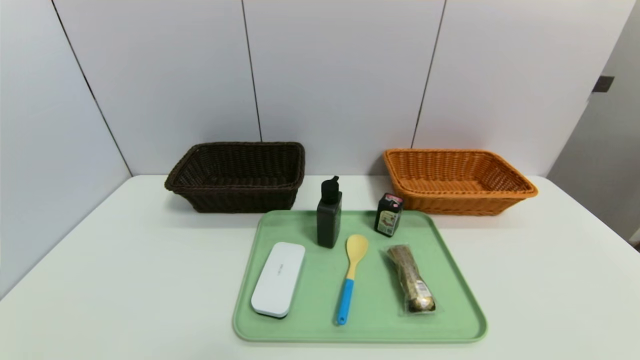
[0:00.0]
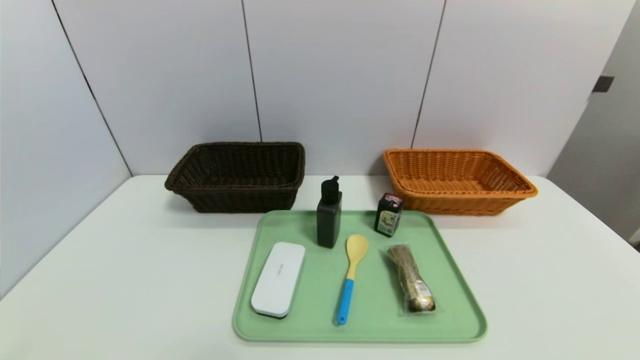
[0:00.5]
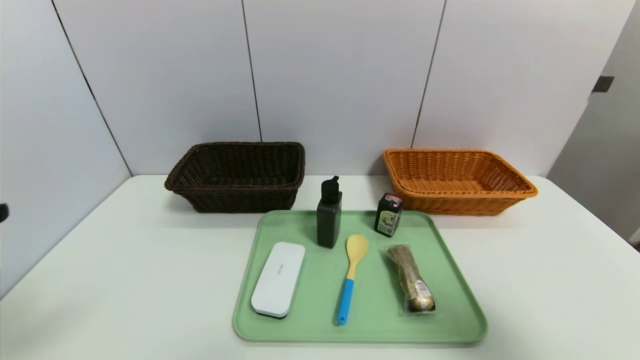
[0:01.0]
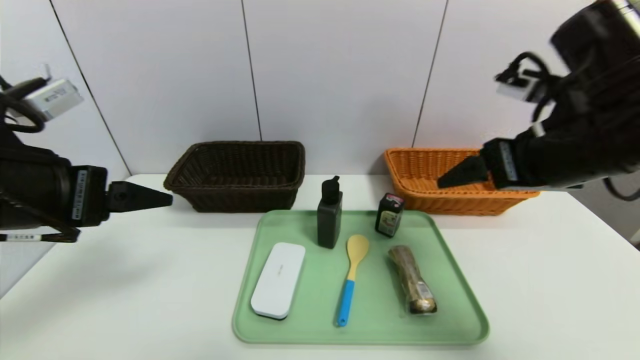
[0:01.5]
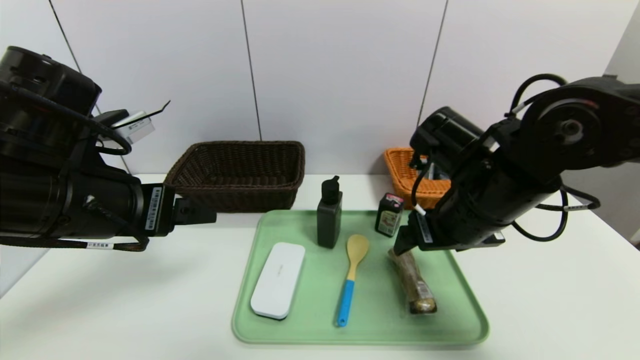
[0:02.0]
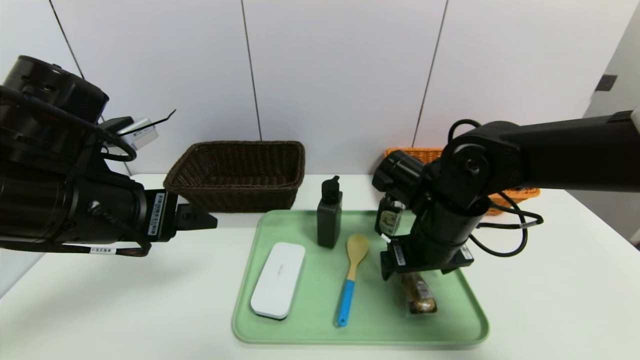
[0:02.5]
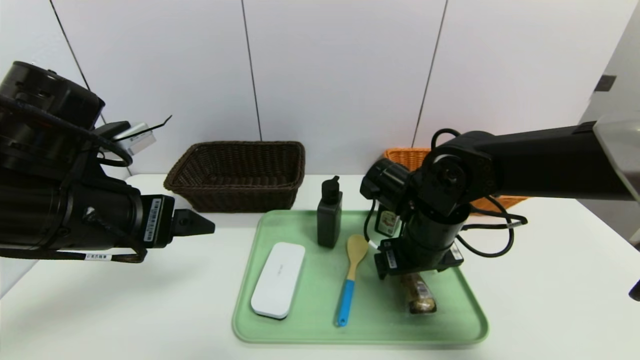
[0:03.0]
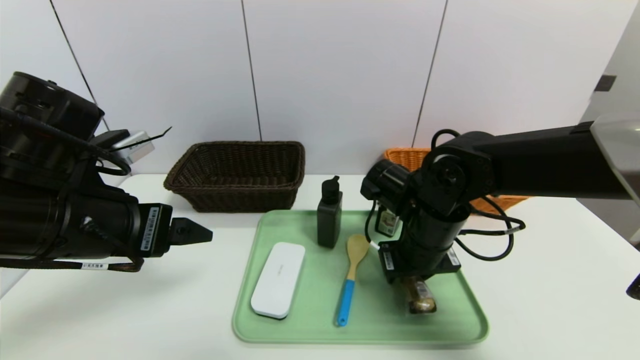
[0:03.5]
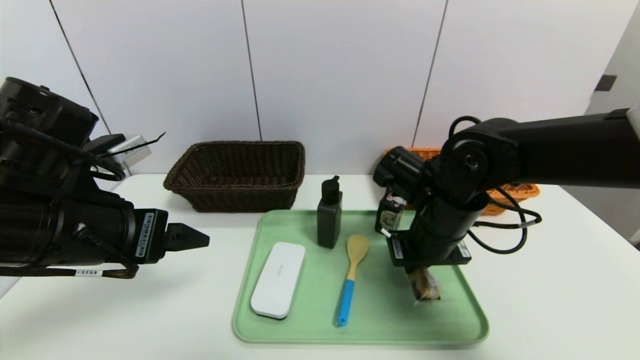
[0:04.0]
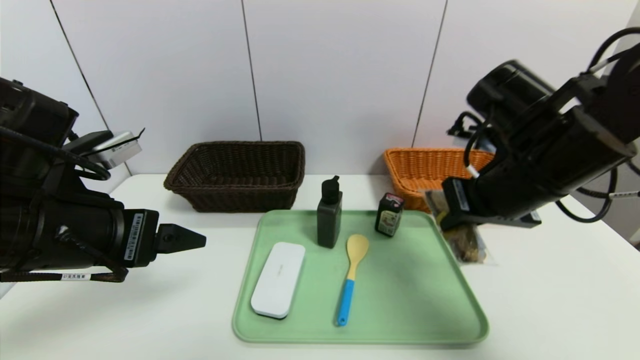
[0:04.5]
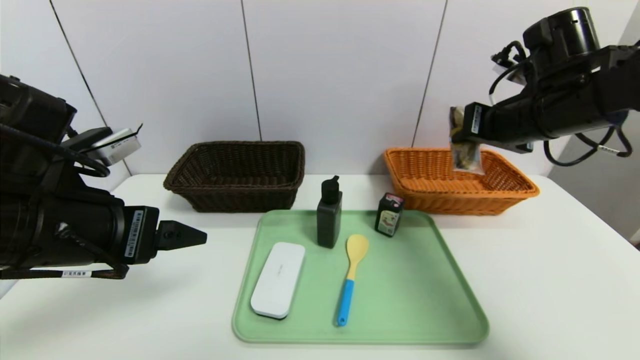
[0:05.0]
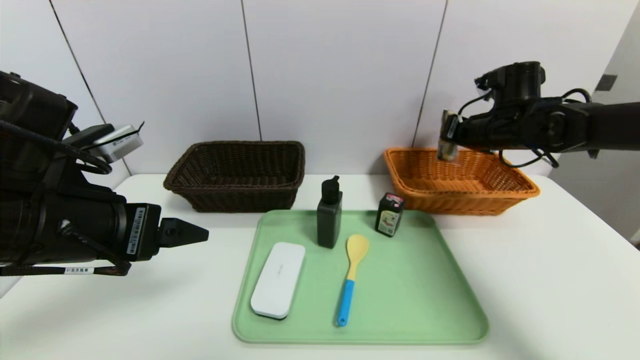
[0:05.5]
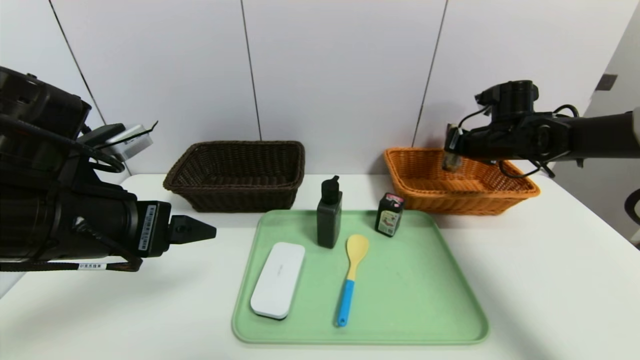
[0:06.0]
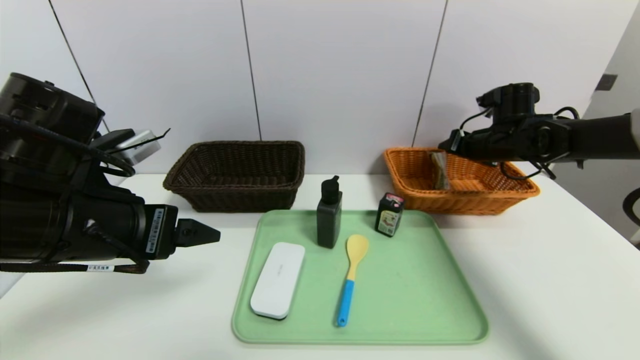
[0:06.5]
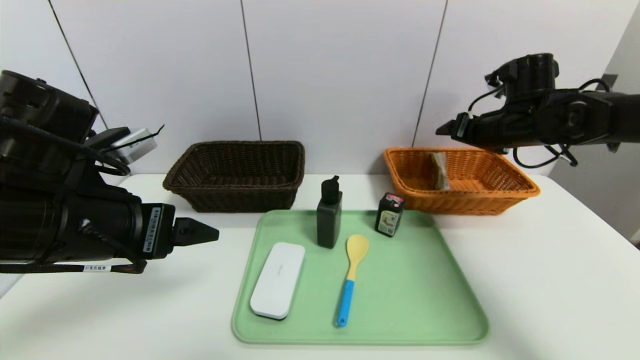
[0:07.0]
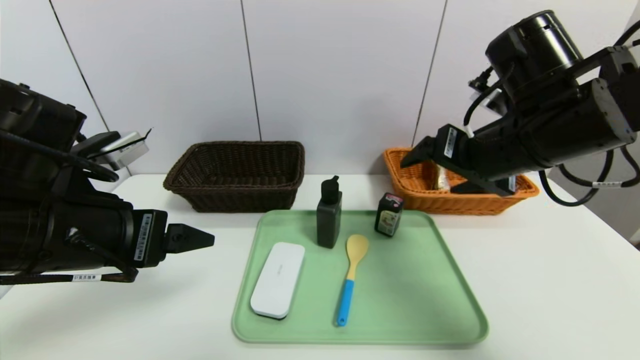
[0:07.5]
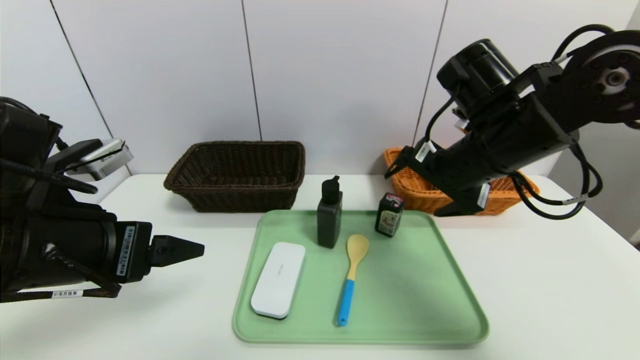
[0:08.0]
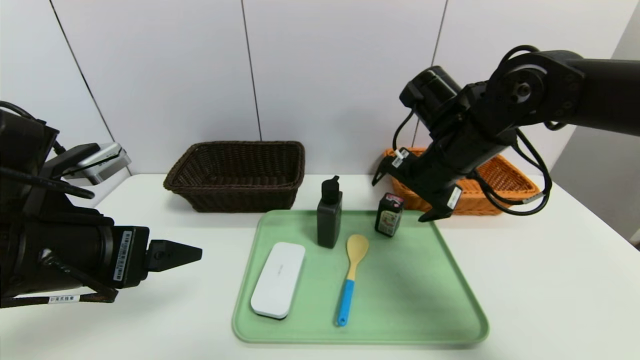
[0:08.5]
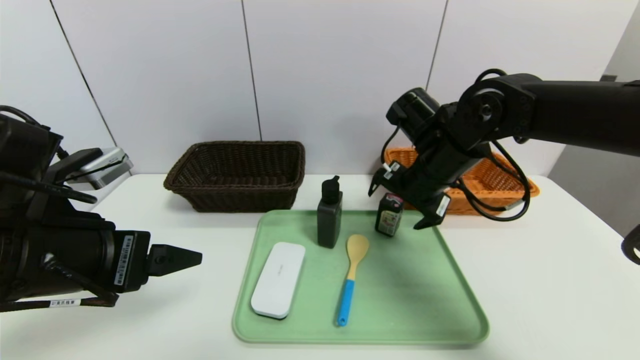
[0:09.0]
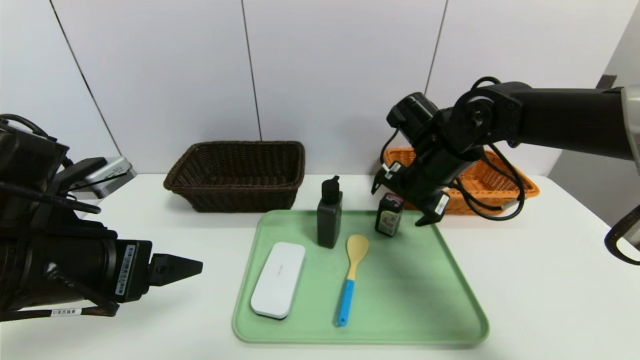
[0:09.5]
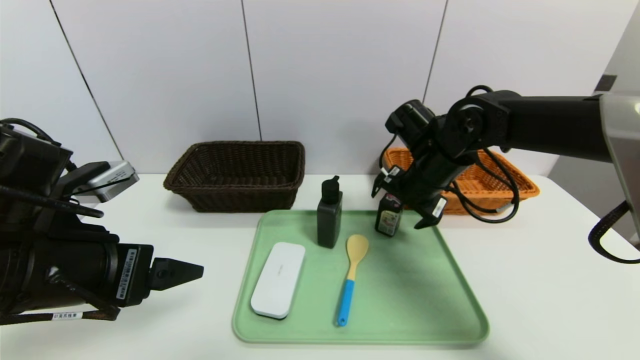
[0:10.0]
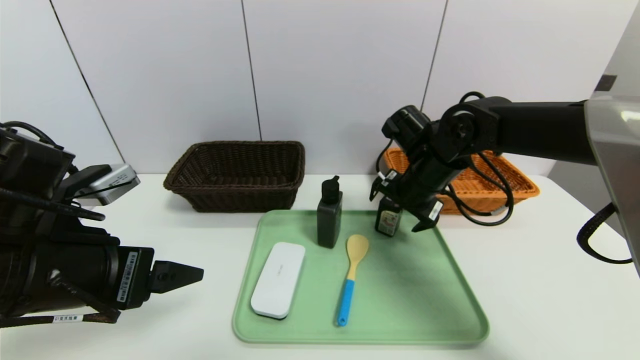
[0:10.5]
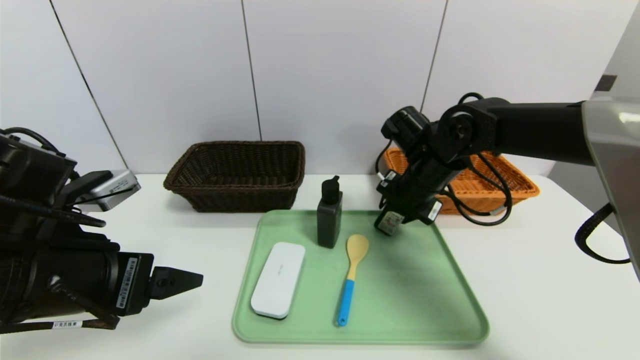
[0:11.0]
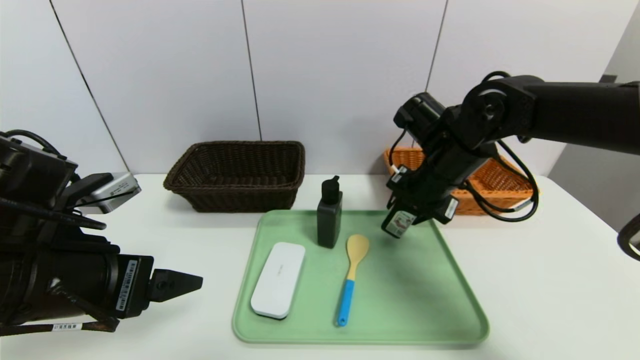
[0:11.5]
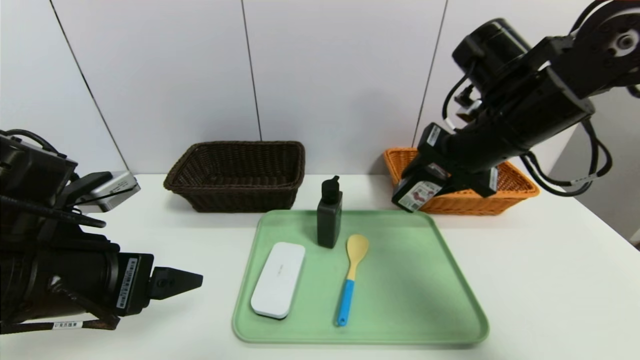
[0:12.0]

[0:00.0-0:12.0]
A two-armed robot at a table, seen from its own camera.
Task of the whole recording: place the food in the right basket with the right gripper, and place the non food items in the left basket with the left gripper.
Step, 0:00.0 to 0:06.5: Grasp the chocolate and put it in the right basket.
0:00.0 to 0:02.0: The right gripper travels forward, to the left and upward by roughly 35 cm, while the left gripper heads forward and upward, covering roughly 30 cm.
0:02.0 to 0:04.0: The right gripper shifts by approximately 5 cm, and closes its fingers.
0:04.0 to 0:06.0: The right gripper travels to the right and forward by approximately 25 cm.
0:06.0 to 0:08.0: The right gripper shifts some 20 cm backward, to the left and upward, and opens up.
0:08.0 to 0:10.0: The right gripper is displaced forward and downward by approximately 10 cm.
0:10.0 to 0:12.0: The right gripper moves upward and backward, about 10 cm, and closes up.

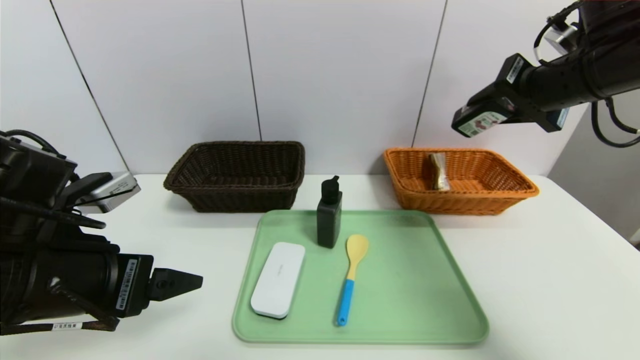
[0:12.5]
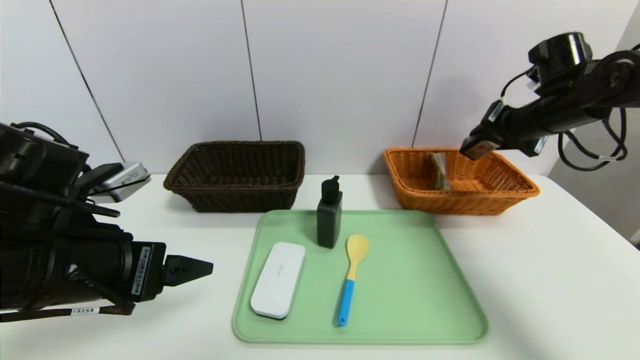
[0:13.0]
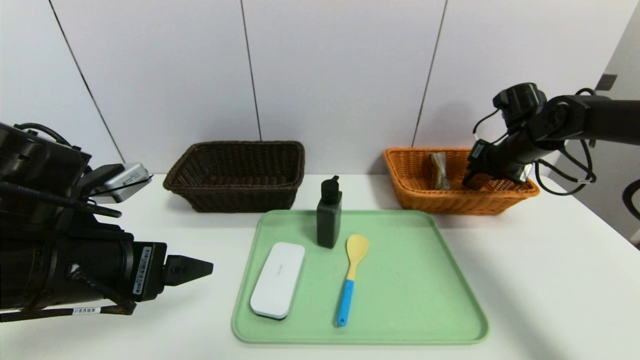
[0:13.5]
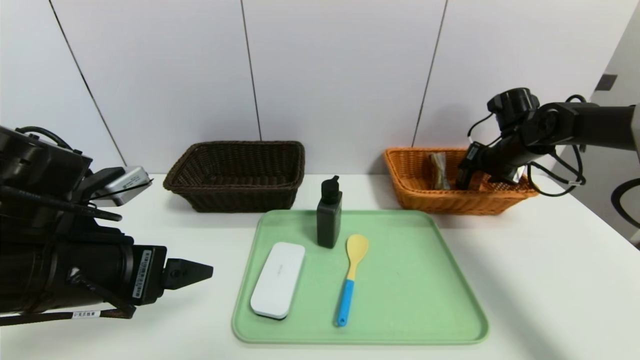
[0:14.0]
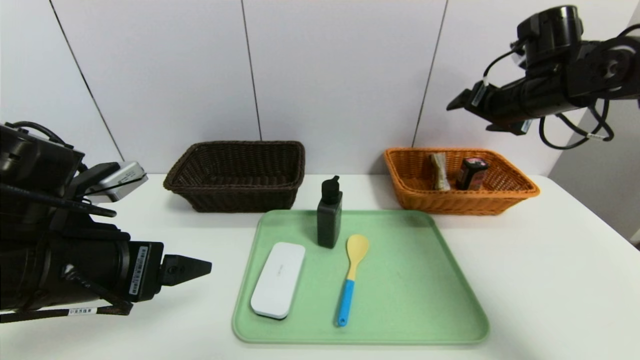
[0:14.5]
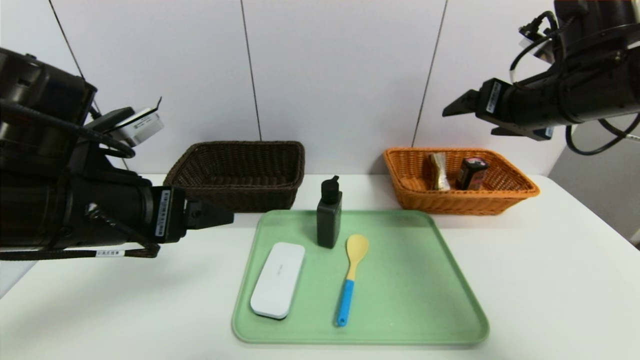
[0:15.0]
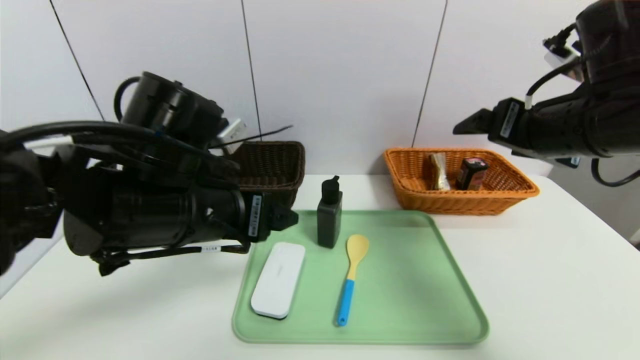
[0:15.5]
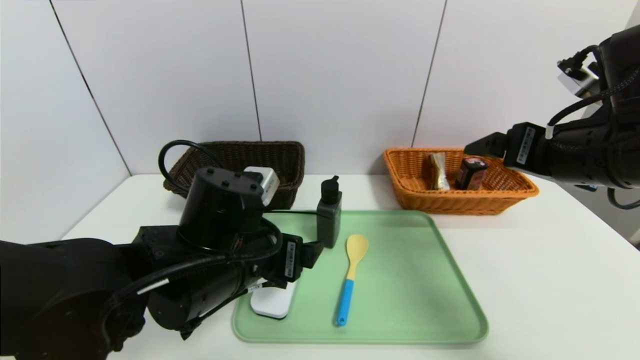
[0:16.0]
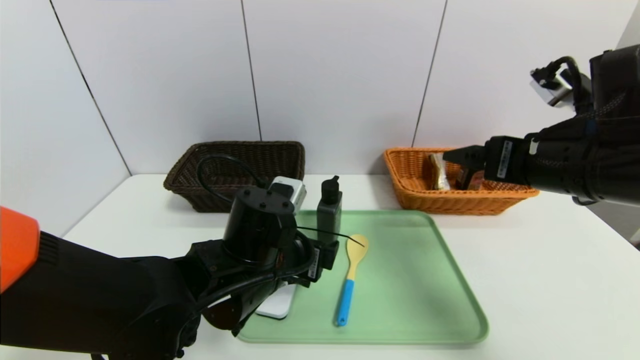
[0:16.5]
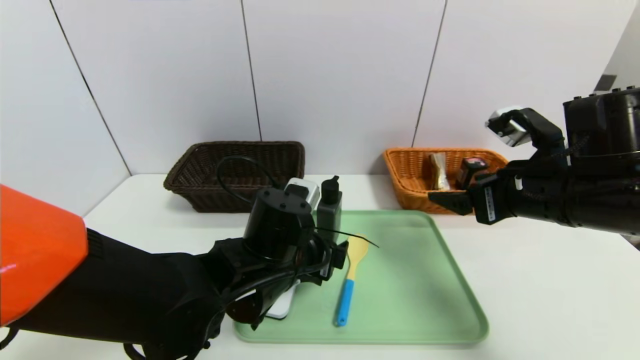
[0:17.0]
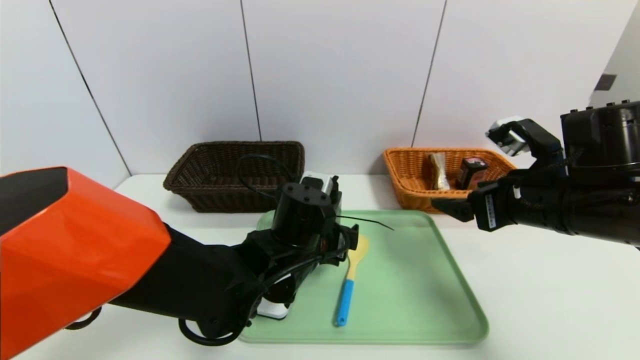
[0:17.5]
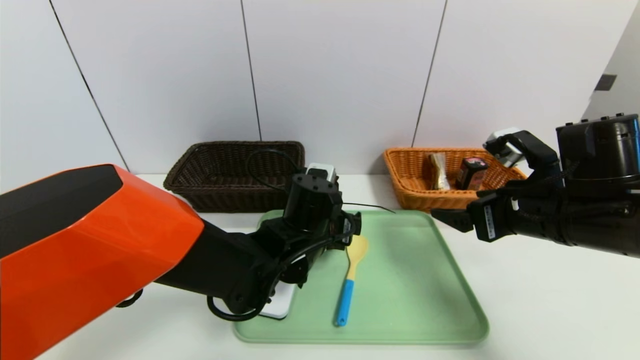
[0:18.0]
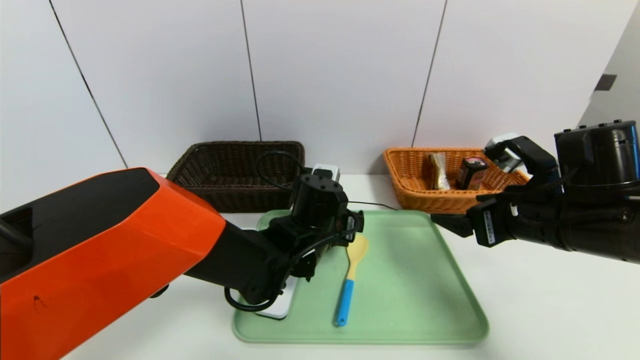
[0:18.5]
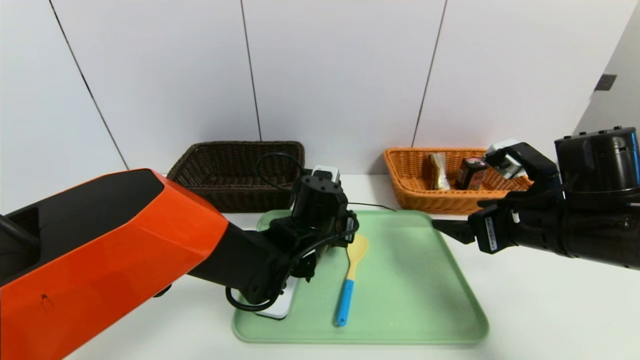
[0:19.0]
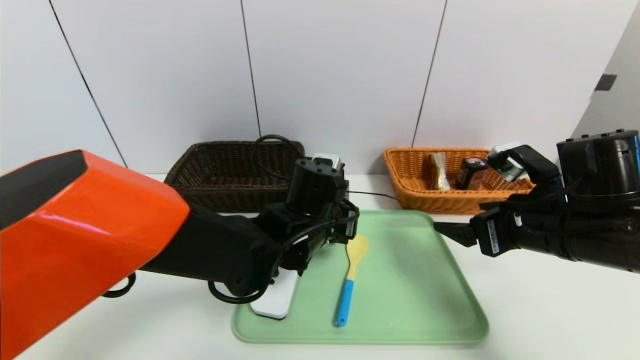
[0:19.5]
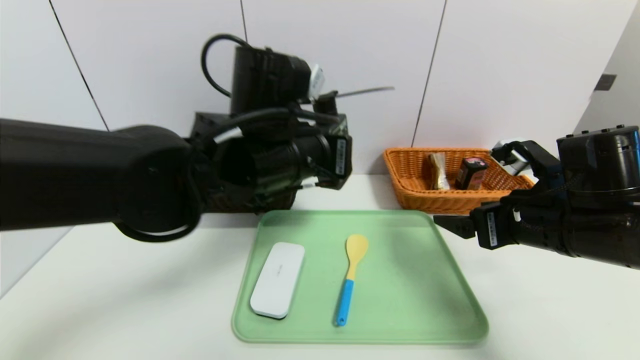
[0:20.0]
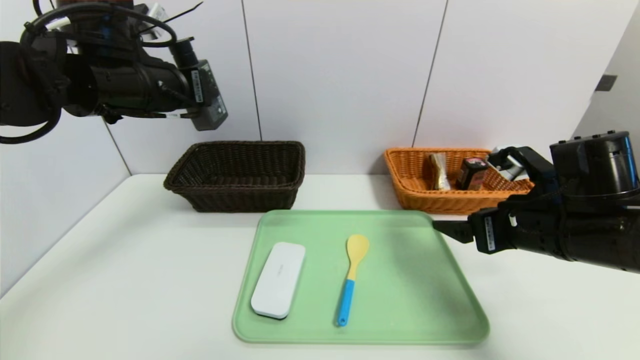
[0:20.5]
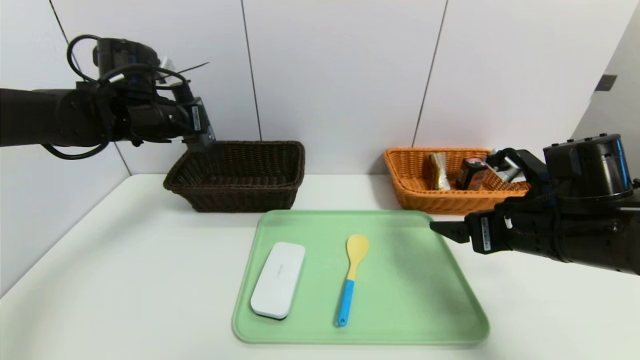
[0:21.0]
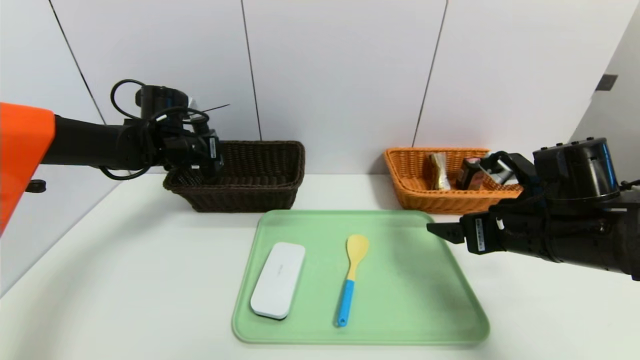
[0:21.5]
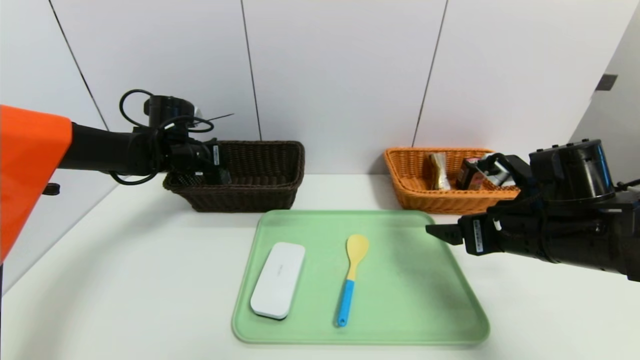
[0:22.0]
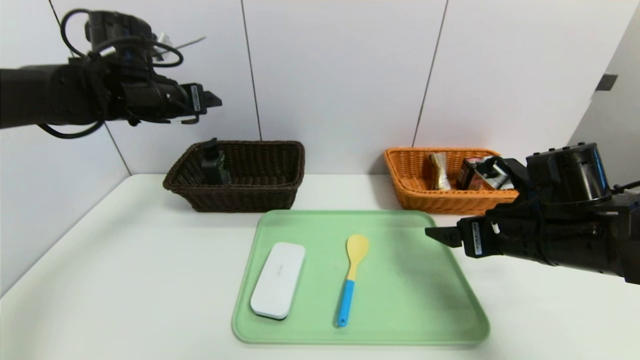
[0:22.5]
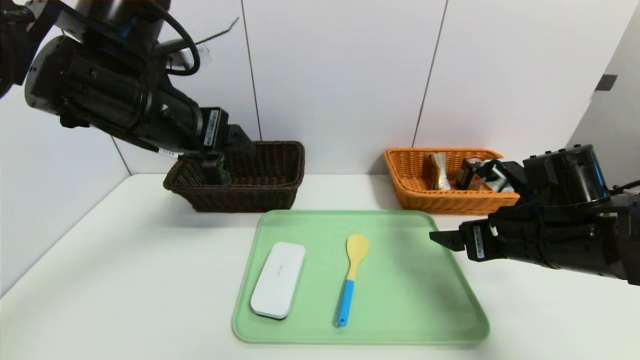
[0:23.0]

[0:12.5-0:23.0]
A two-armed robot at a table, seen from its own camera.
Task of the whole recording: place the food in the right basket with the right gripper, and place the non food items in the left basket with the left gripper.
Step, 0:14.5 to 0:22.0: Grasp the hard cleanser and put it in the left basket.
0:12.5 to 0:14.5: The right gripper is displaced forward by roughly 10 cm, travels downward and back again, some 15 cm each way, and opens its fingers.
0:14.5 to 0:16.5: The left gripper moves to the right, downward and forward, some 20 cm; the right gripper heads backward, covering roughly 15 cm.
0:16.5 to 0:19.0: The right gripper shifts about 5 cm downward; the left gripper heads forward and to the right, covering about 10 cm, and closes up.
0:19.0 to 0:21.0: The left gripper shifts roughly 30 cm to the left and upward.
0:21.0 to 0:23.0: The left gripper travels backward, to the right and upward by some 15 cm, and opens its fingers.
